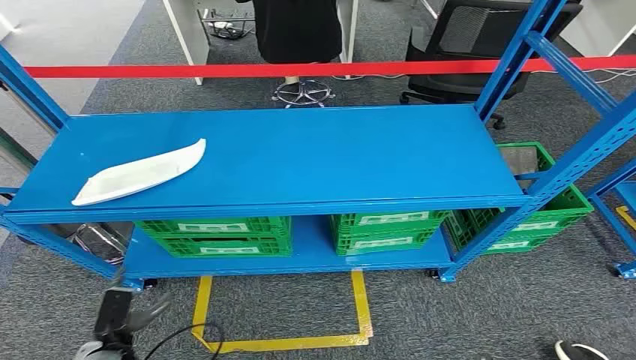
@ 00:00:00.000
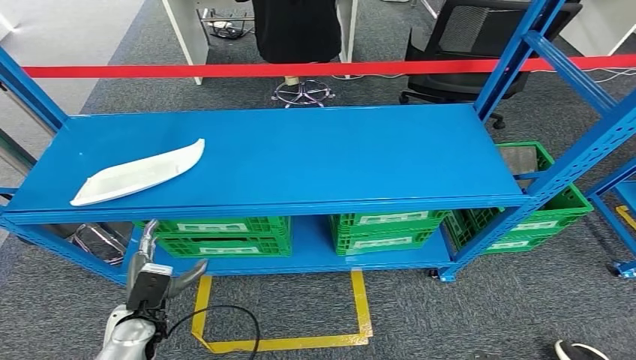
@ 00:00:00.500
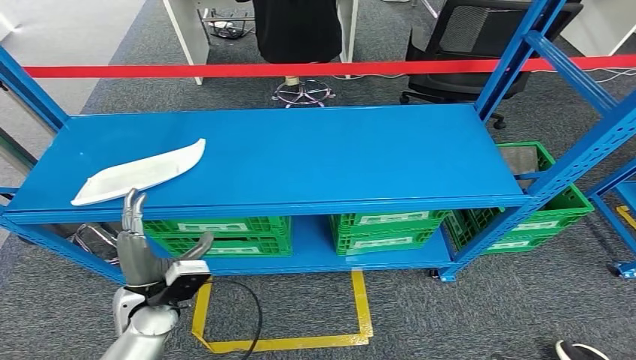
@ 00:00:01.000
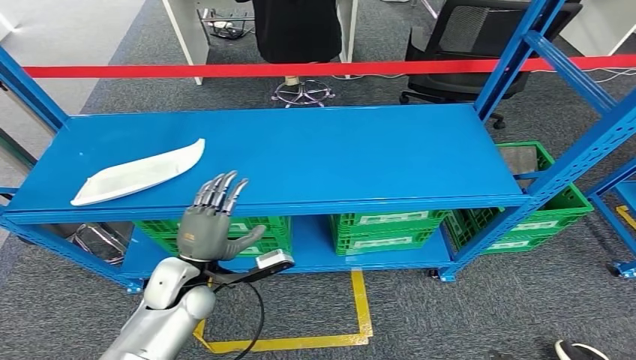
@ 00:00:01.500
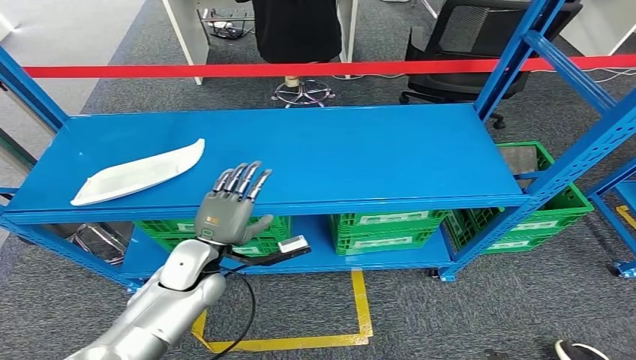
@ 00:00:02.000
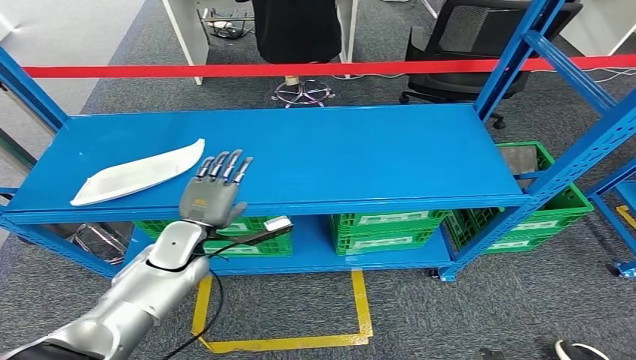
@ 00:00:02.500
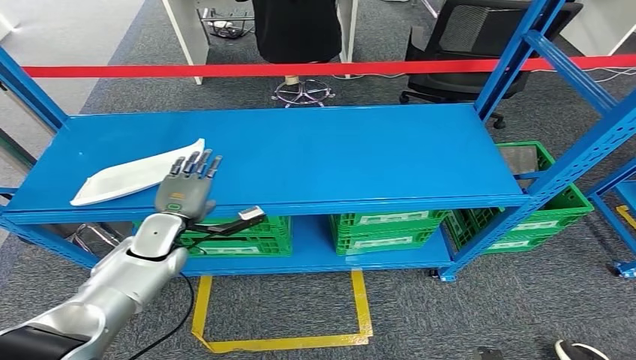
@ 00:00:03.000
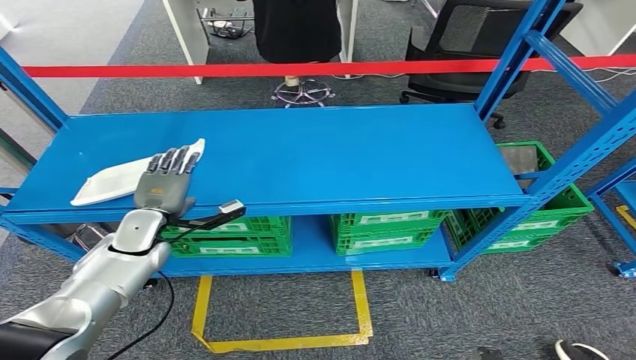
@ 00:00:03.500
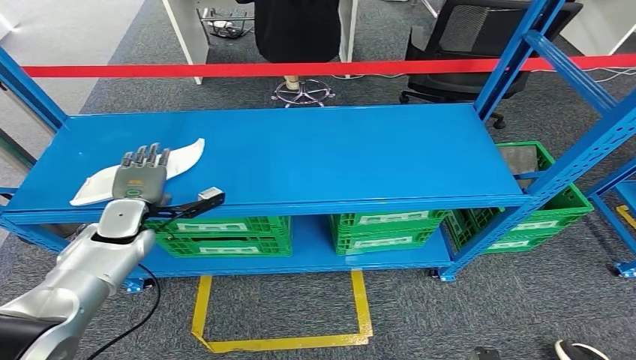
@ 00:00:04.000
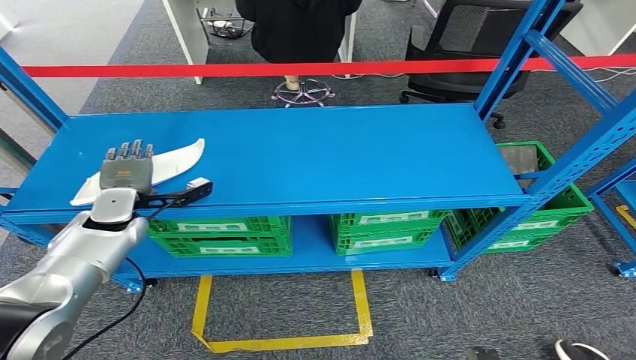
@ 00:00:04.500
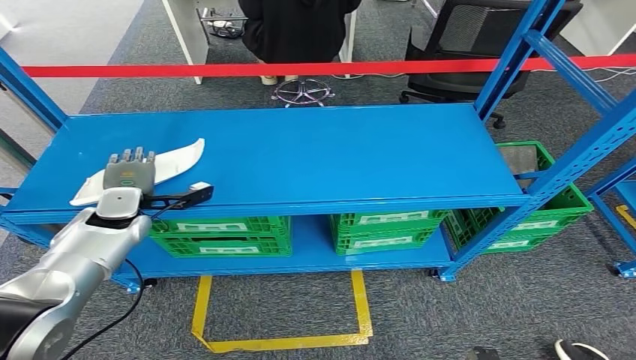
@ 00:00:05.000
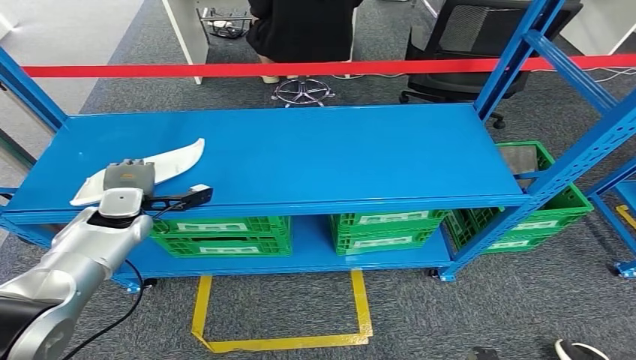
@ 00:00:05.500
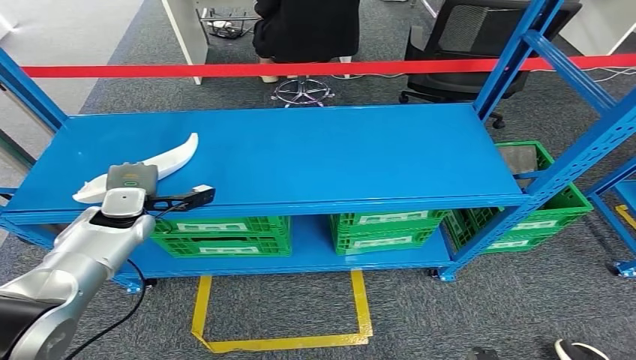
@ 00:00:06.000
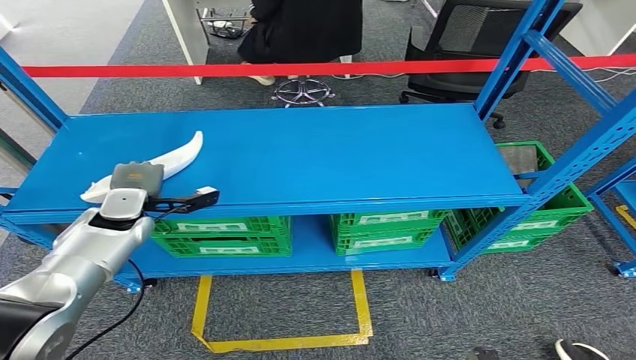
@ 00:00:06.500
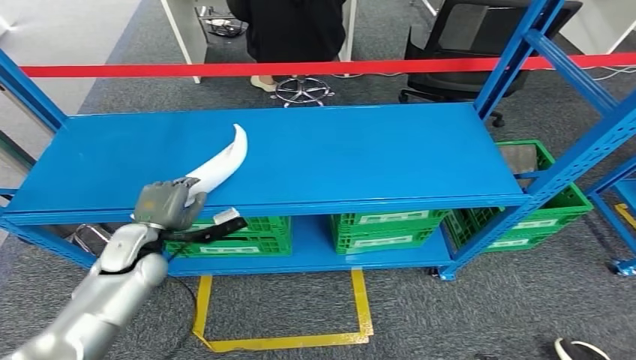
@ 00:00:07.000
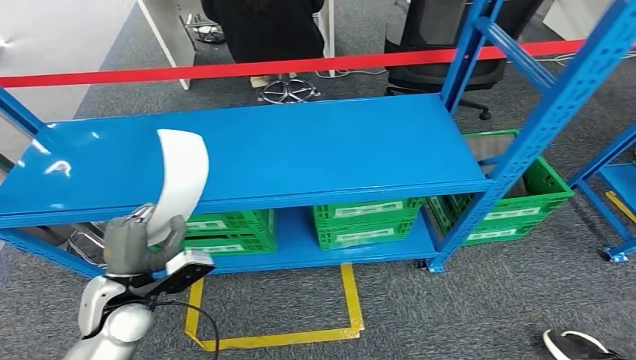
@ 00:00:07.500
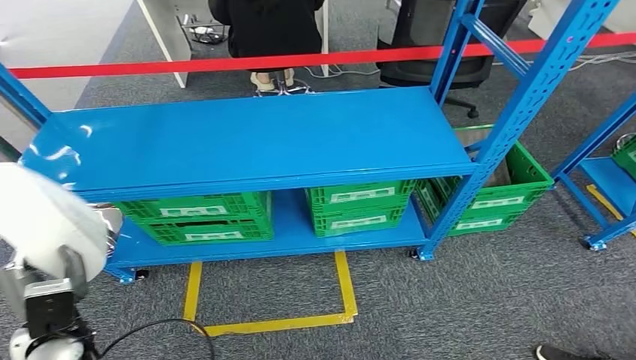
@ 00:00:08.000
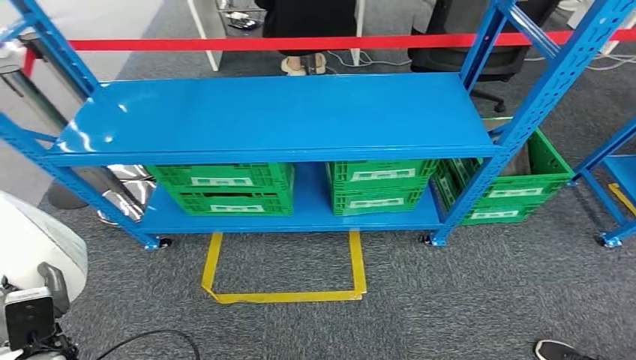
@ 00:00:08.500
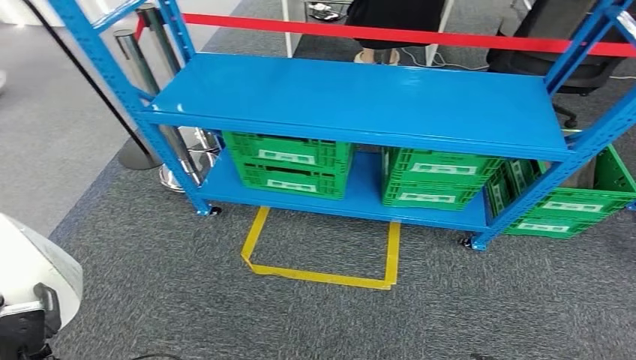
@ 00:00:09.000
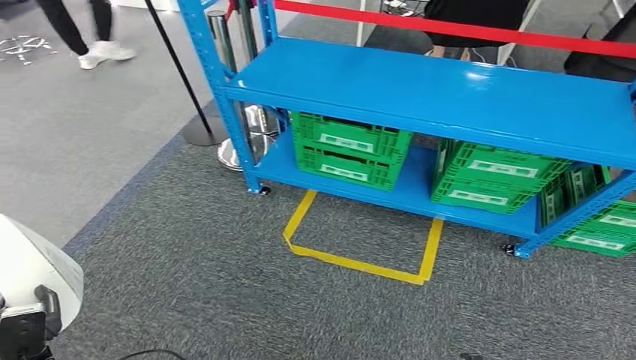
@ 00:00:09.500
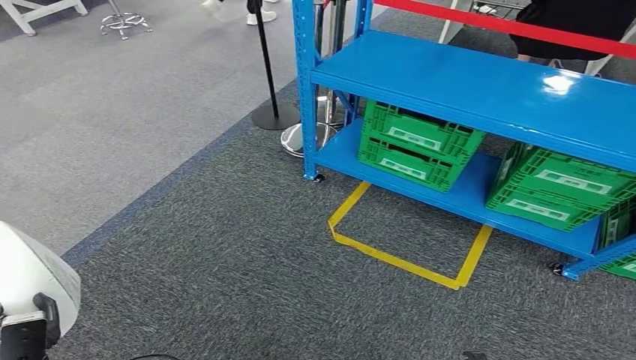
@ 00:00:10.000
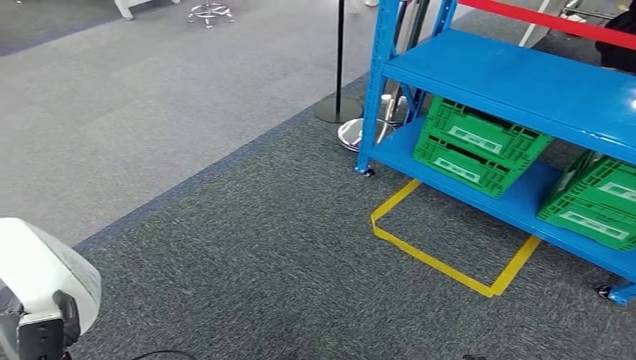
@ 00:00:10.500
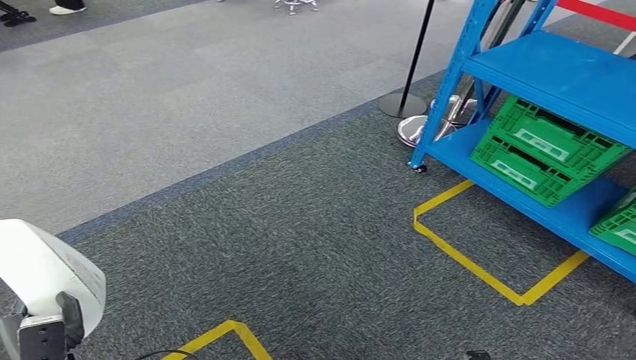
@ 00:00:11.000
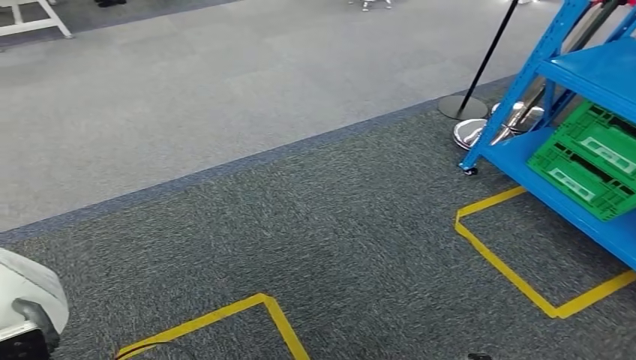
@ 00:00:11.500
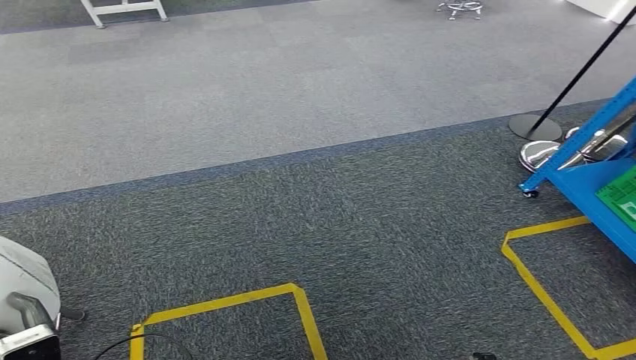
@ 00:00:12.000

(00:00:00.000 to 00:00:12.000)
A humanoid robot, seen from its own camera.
Step, 00:00:00.000 - 00:00:06.500: Pick up the small component from the shelf.
00:00:02.000 - 00:00:04.000: The left hand moves to the left and forward, roughly 15 cm.

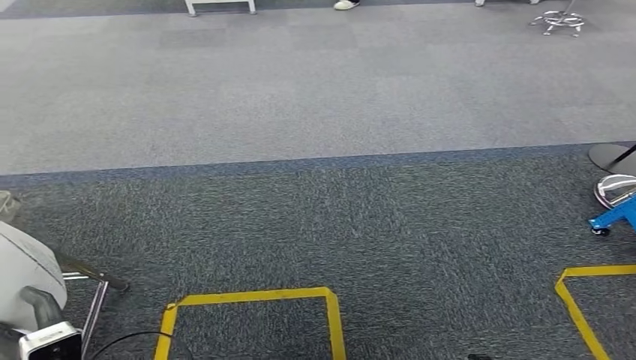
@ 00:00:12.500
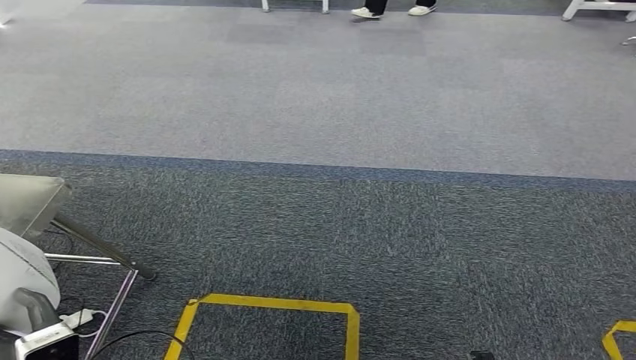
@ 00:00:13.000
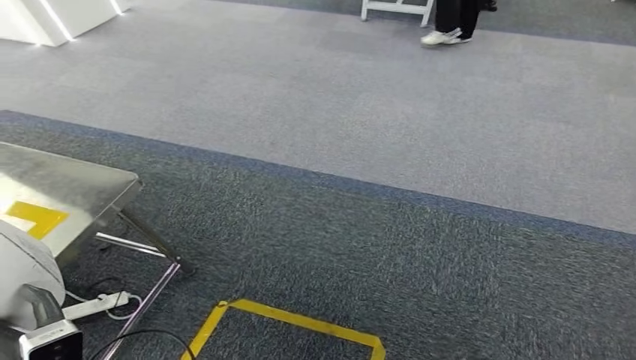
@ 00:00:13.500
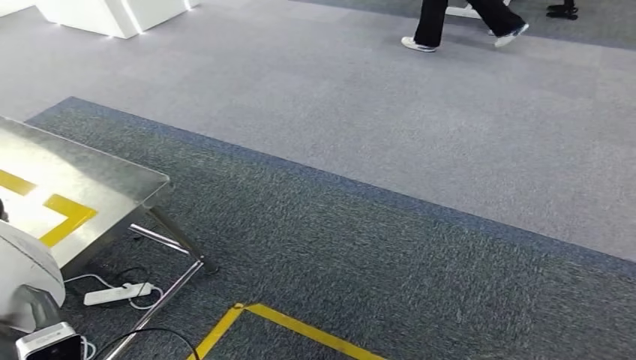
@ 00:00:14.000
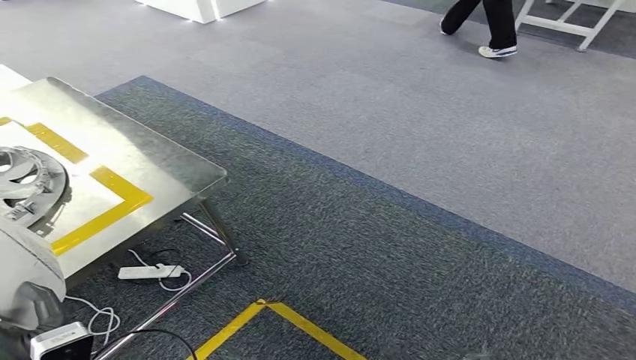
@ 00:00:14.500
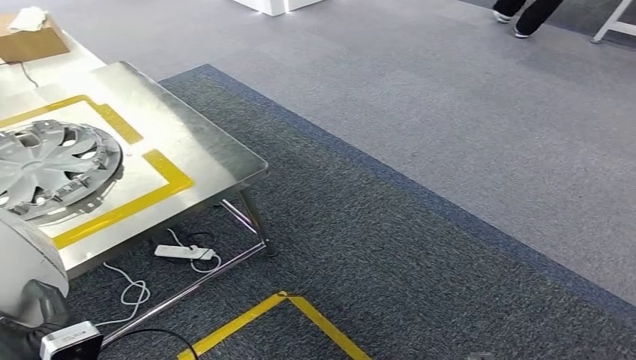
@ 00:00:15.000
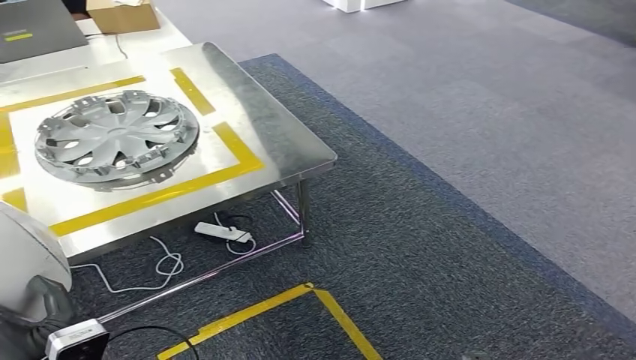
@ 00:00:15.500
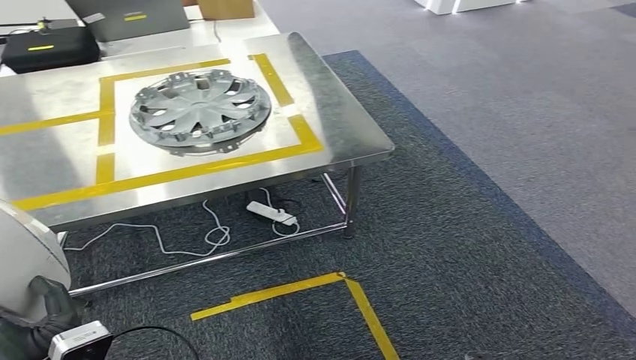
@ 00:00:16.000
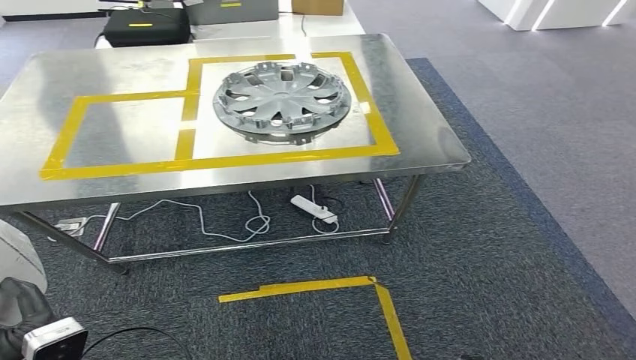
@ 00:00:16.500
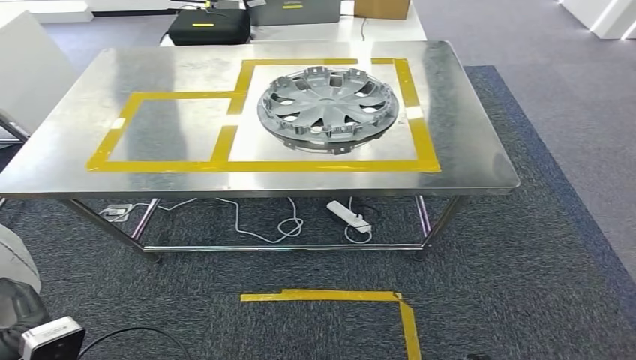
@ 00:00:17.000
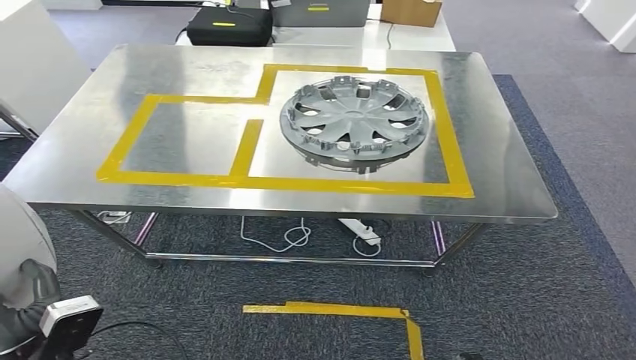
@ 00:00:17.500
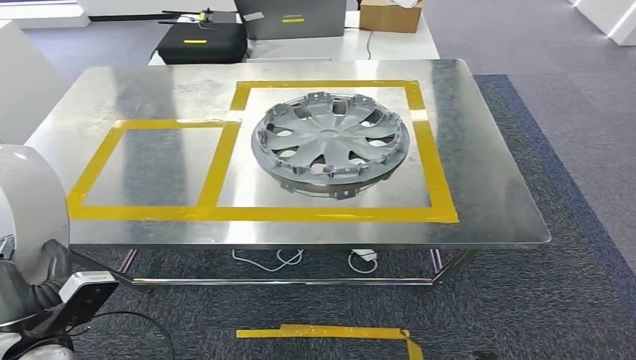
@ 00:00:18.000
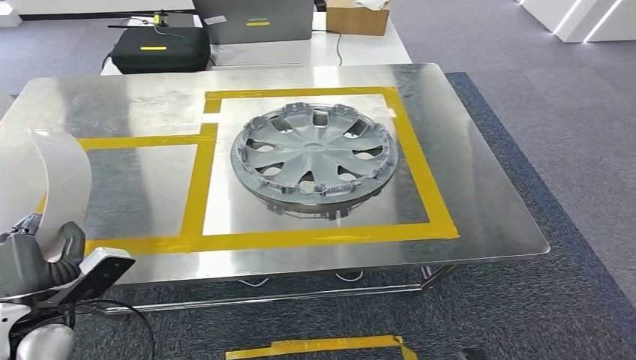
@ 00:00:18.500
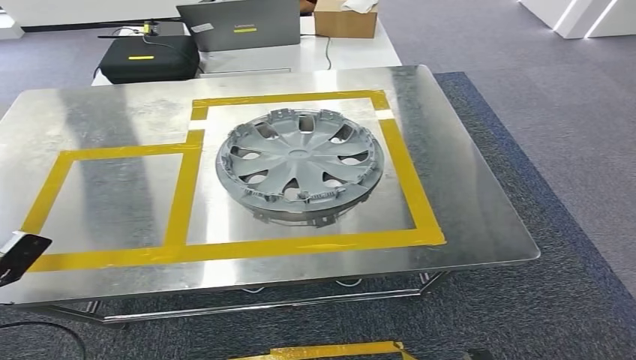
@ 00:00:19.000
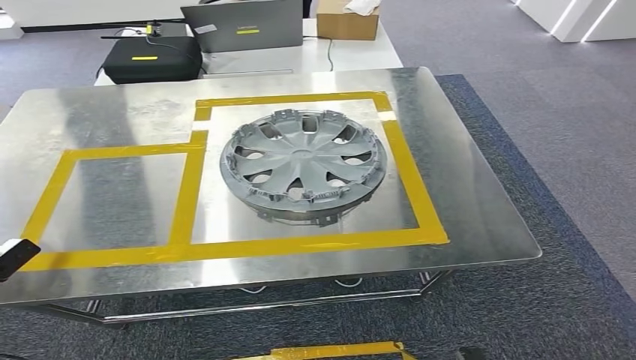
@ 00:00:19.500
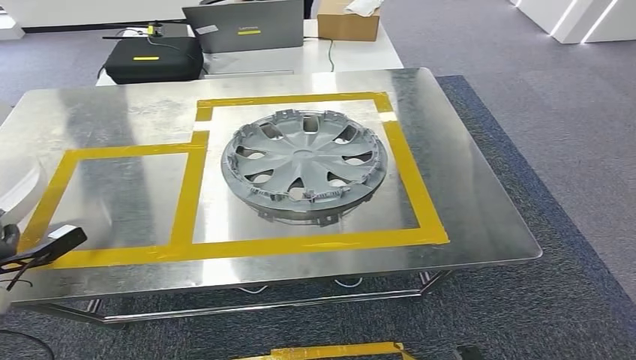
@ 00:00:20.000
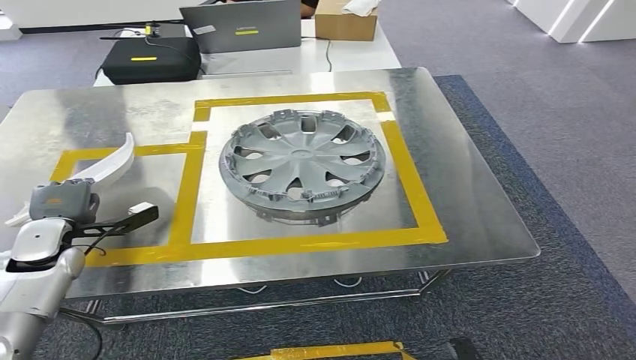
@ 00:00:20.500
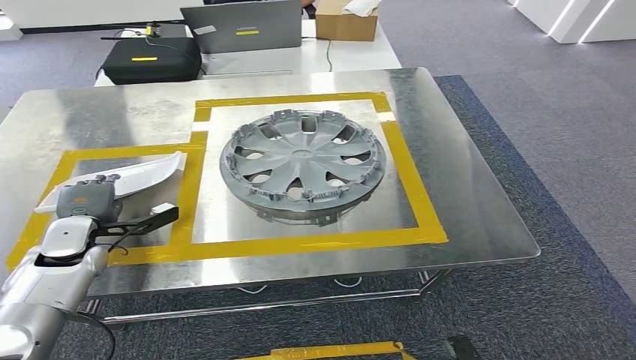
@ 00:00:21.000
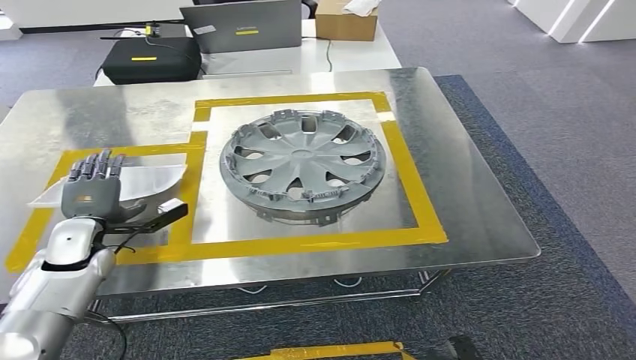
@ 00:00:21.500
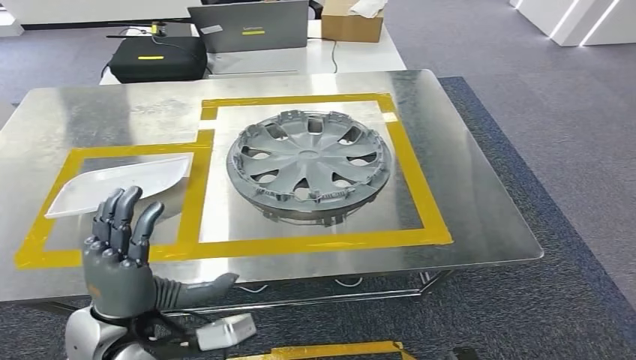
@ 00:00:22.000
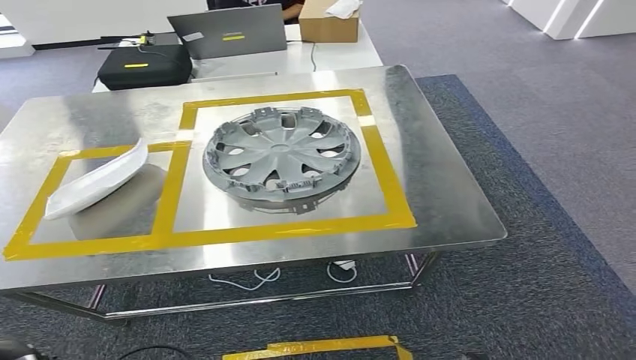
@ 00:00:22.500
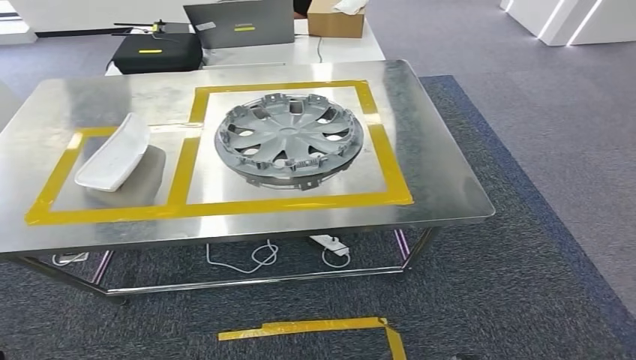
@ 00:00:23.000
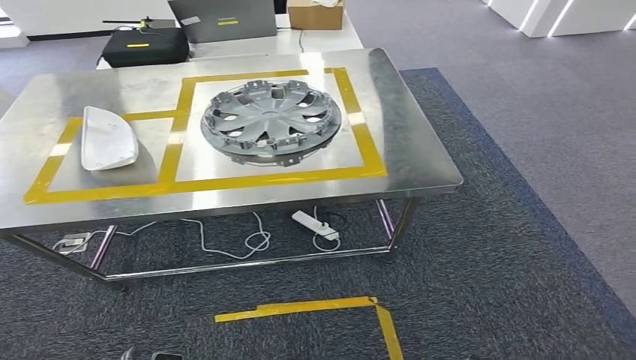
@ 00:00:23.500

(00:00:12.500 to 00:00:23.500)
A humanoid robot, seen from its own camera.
Step, 00:00:12.500 - 00:00:17.500: Move the small component to the workbench.
00:00:20.000 - 00:00:21.500: The left hand goes about 15 cm to the right and forward.
